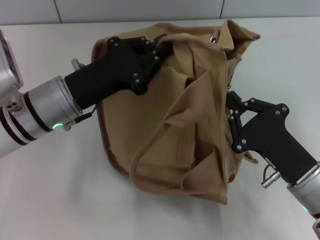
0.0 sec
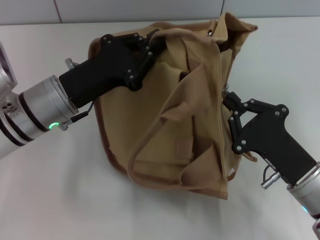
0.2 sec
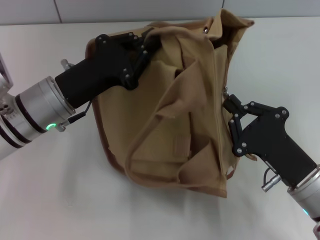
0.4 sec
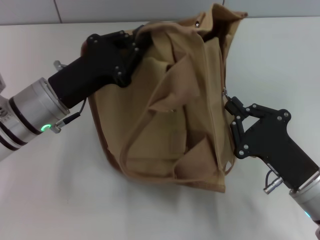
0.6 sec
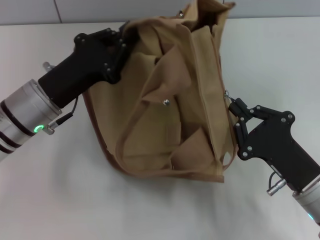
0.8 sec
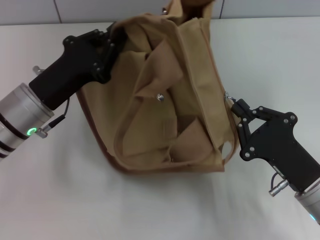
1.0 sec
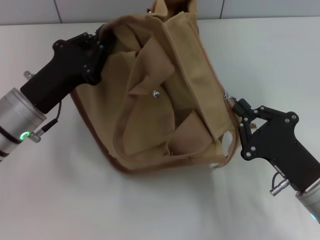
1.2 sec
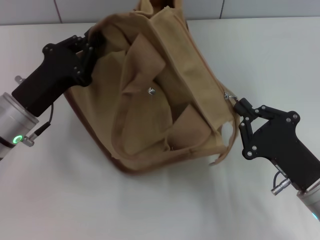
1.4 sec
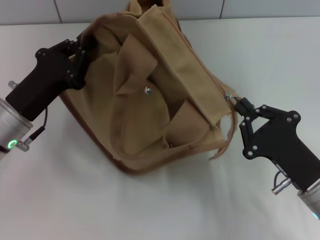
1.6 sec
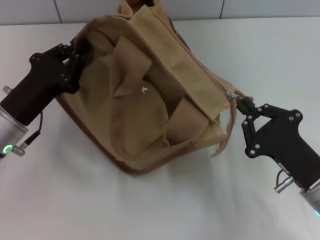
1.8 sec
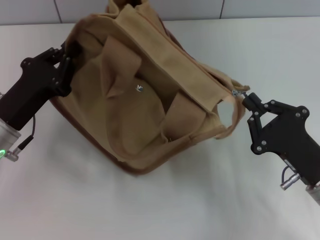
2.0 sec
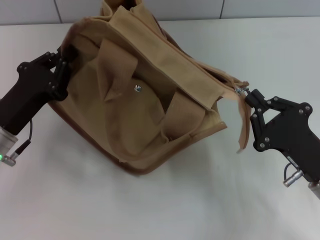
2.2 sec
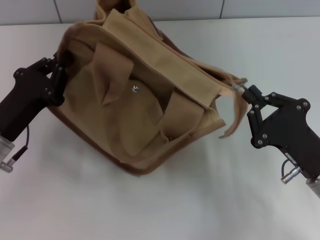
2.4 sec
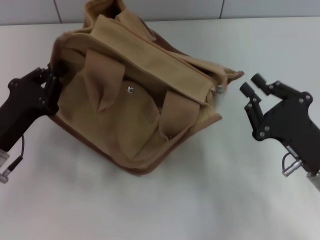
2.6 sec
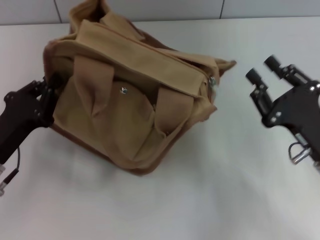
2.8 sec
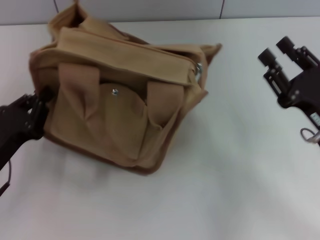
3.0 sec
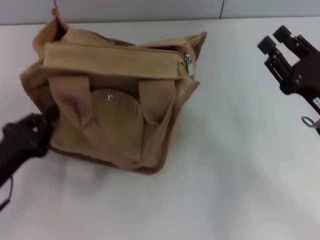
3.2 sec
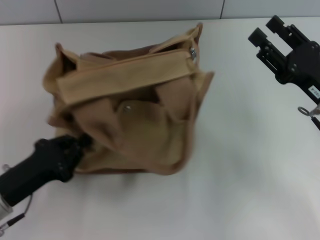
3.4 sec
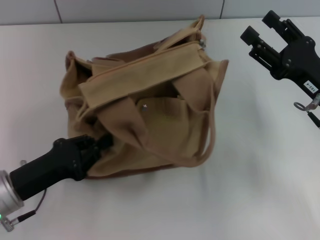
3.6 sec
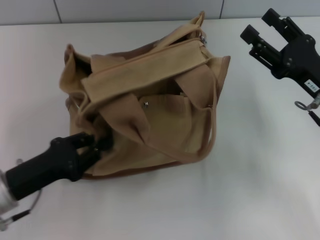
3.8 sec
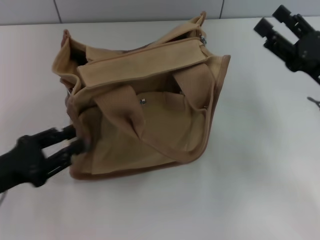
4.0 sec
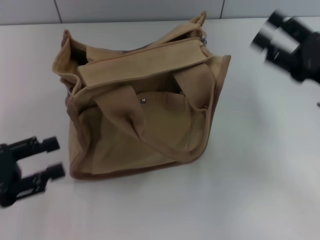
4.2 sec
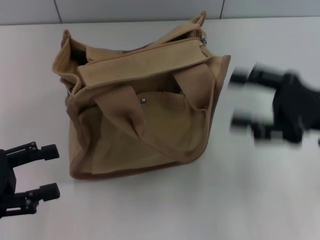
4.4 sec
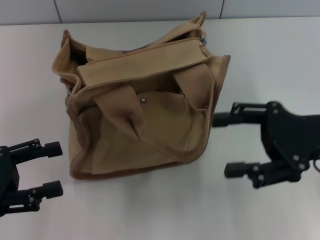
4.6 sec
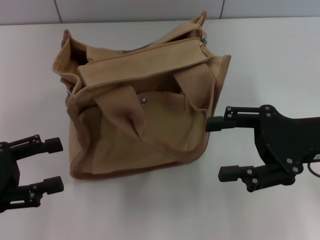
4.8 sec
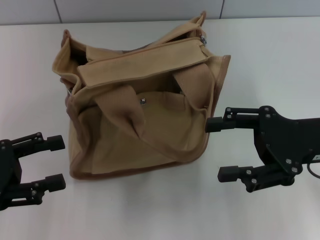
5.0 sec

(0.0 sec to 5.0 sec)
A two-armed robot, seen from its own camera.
Step, 0.0 sec - 2.6 sec: Pull open the zipper with your right hand.
Step, 2.8 sec - 4.0 sec: Grab the bag with your left hand.
0.0 sec - 1.6 sec: The left gripper is displaced to the left by about 5 cm.
1.6 sec - 3.4 sec: The right gripper is displaced forward and upward by approximately 10 cm, and opens; the left gripper heads backward, covering roughly 10 cm.
3.4 sec - 5.0 sec: The left gripper heads upward and to the left, covering roughly 10 cm, and opens. The right gripper travels upward by approximately 5 cm, and opens its fingers.

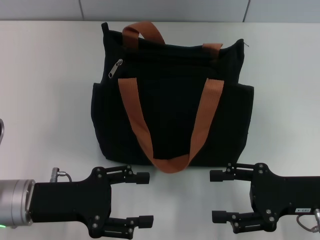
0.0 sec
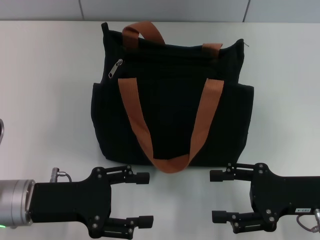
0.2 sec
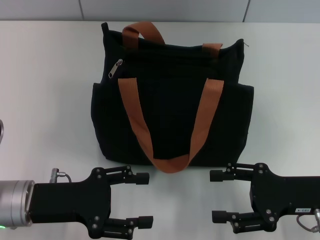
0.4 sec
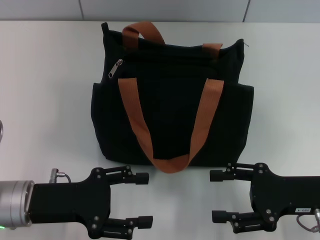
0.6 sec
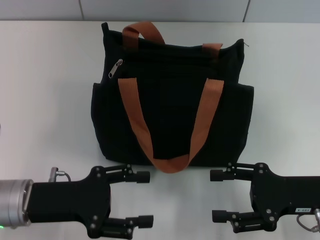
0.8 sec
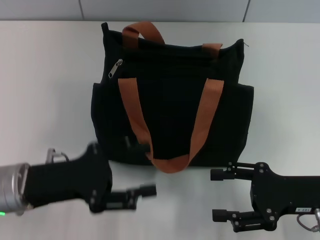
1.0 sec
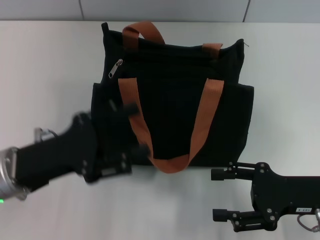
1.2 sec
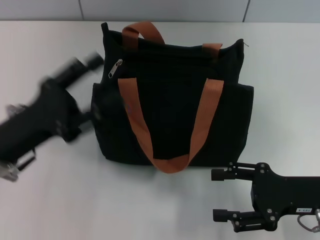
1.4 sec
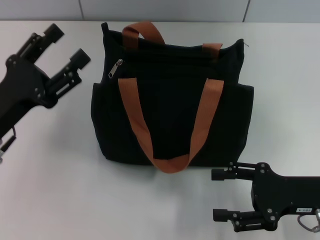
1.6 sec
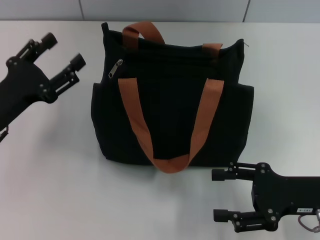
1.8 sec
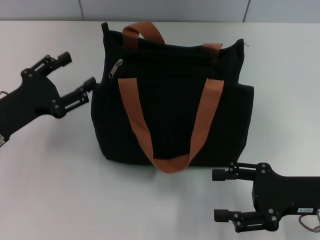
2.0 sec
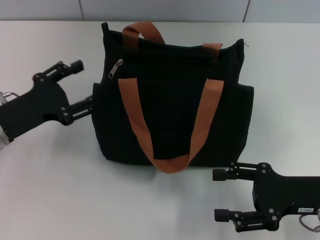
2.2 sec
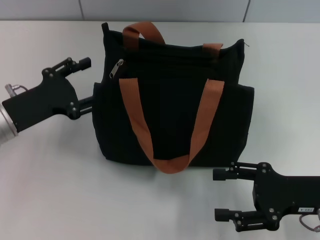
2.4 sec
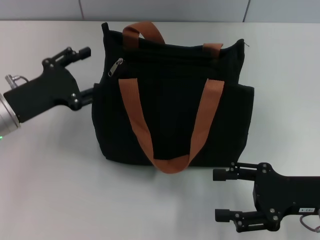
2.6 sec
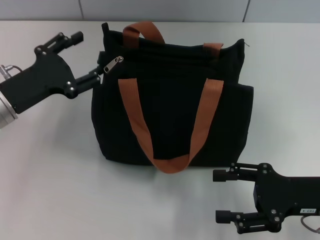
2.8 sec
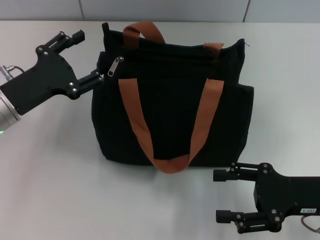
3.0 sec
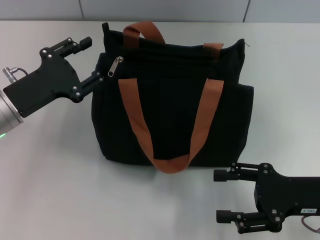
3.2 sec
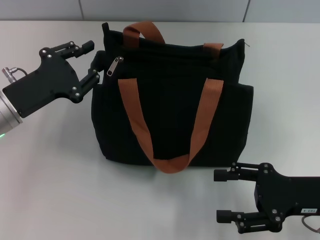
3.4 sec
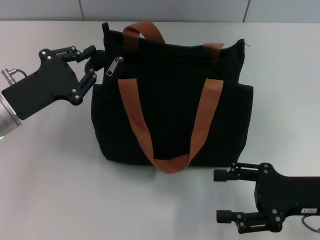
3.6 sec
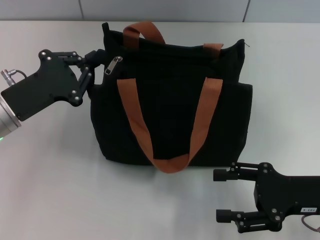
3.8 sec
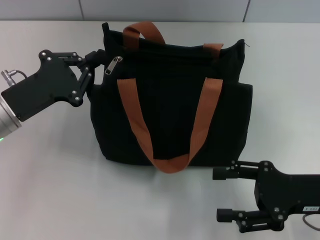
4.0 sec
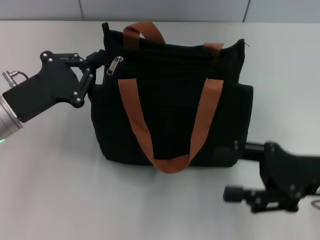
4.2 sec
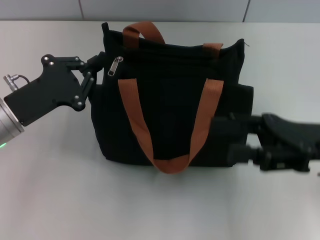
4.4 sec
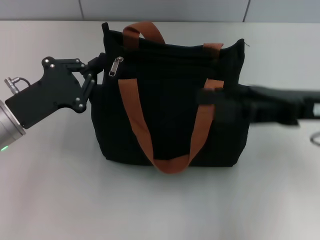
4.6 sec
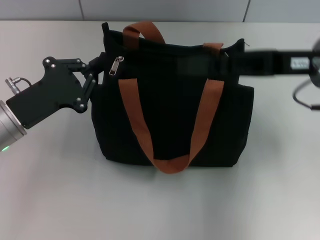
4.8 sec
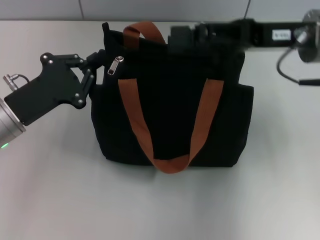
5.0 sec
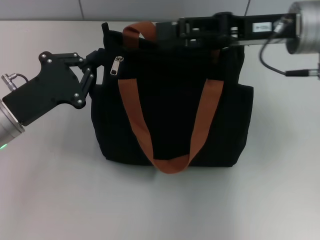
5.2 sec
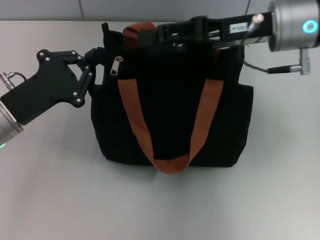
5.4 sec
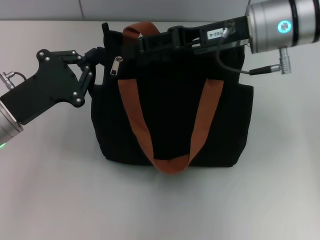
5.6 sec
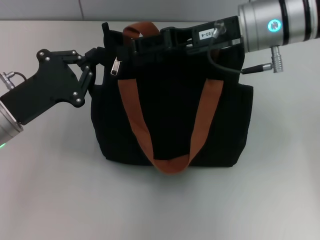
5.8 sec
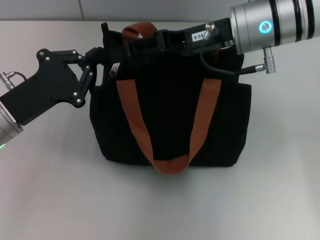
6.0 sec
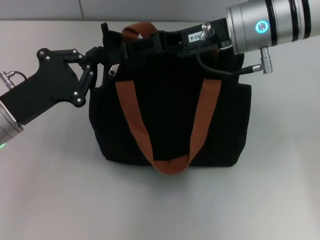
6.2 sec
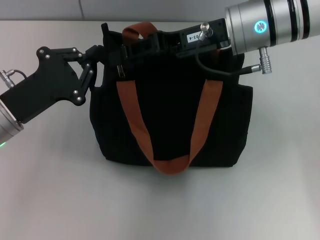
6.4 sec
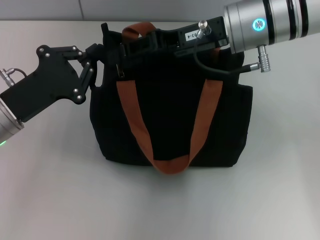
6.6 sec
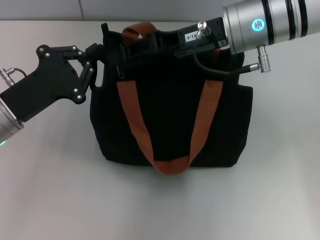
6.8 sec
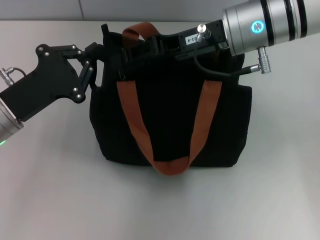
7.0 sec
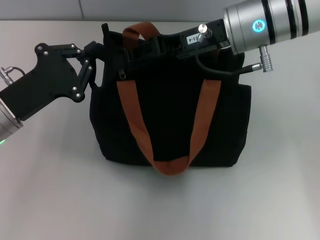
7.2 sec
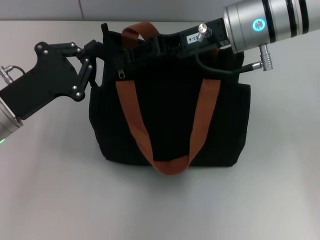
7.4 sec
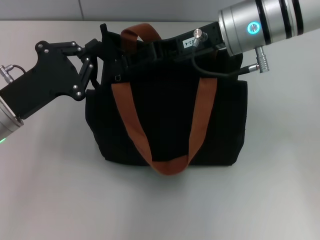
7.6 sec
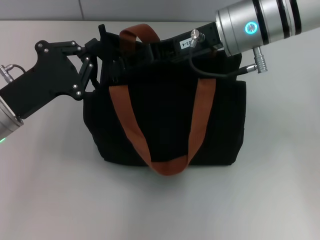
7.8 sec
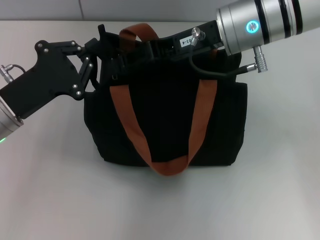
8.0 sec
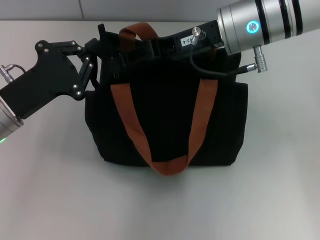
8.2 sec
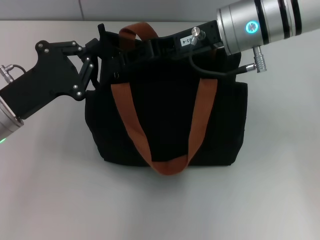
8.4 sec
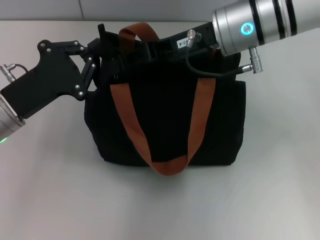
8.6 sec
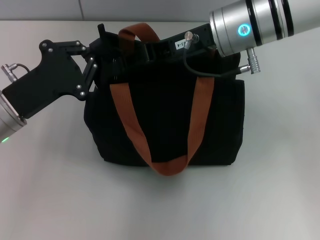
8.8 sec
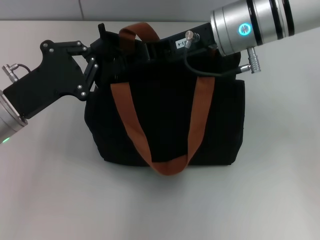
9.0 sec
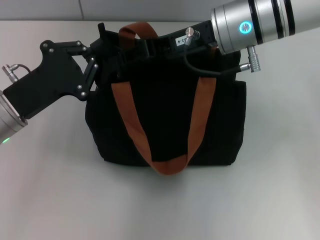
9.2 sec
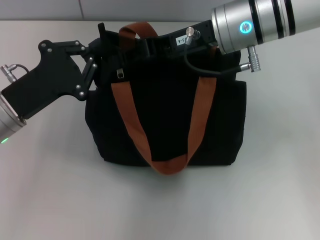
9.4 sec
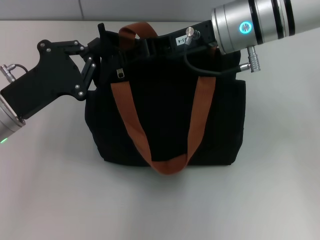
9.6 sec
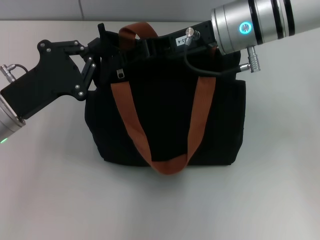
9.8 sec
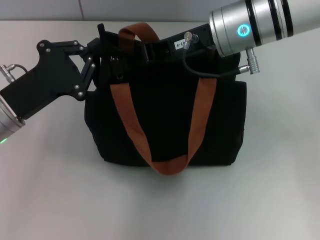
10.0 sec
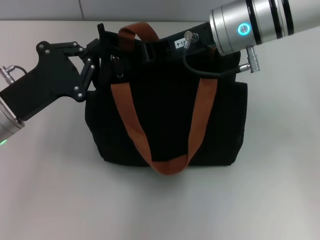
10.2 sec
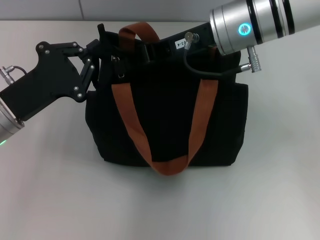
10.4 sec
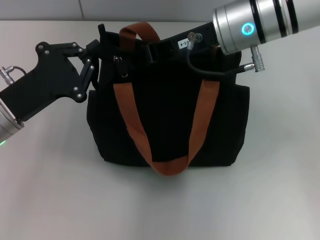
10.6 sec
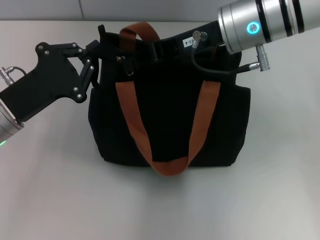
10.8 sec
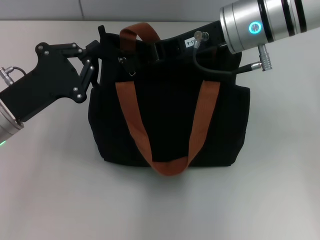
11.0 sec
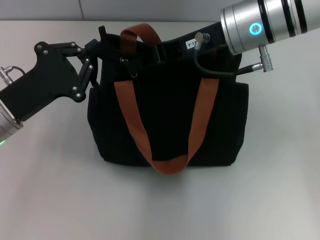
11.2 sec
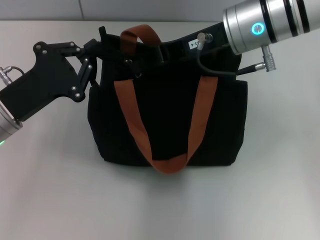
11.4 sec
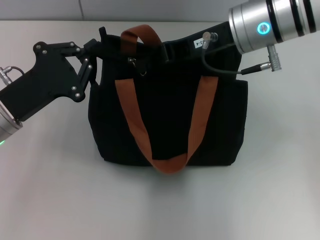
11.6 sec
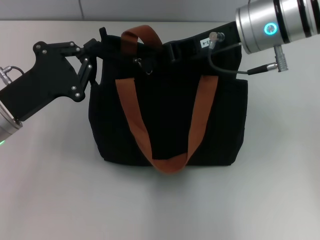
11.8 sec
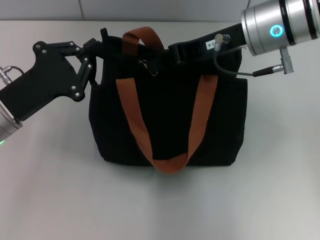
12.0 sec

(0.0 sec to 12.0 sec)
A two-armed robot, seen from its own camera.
1.6 sec - 3.0 sec: The left gripper is displaced forward by about 5 cm.
3.0 sec - 4.4 sec: The right gripper goes roughly 5 cm upward. The left gripper closes up.
4.4 sec - 6.0 sec: The right gripper moves forward, to the left and upward, some 20 cm.
6.0 sec - 7.6 sec: The right gripper closes up.
7.6 sec - 9.0 sec: Both grippers stay put.
9.0 sec - 10.4 sec: The right gripper closes.
10.4 sec - 12.0 sec: The grippers stay close to where they were, moving slightly.

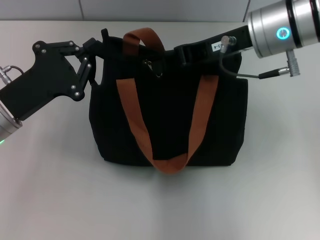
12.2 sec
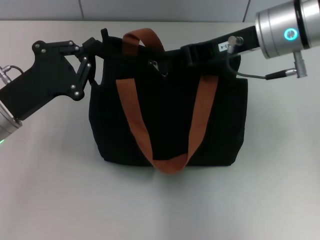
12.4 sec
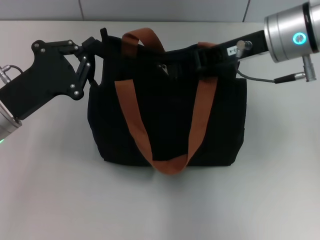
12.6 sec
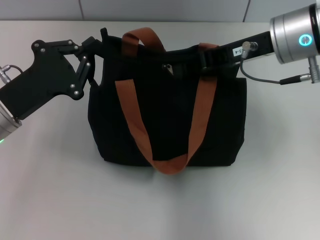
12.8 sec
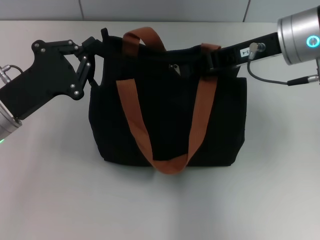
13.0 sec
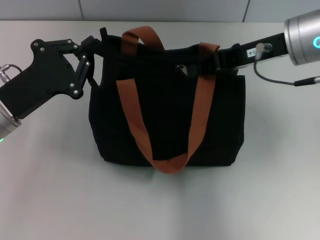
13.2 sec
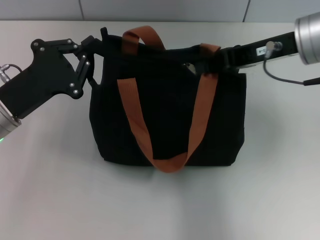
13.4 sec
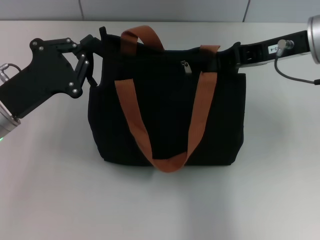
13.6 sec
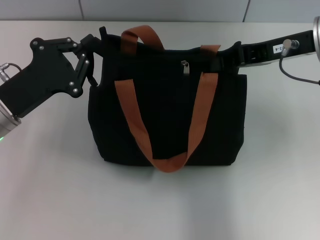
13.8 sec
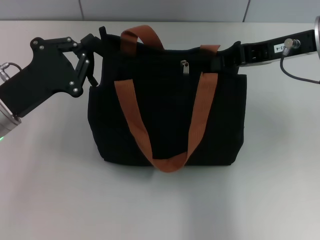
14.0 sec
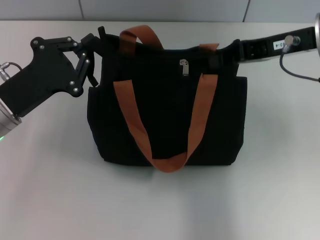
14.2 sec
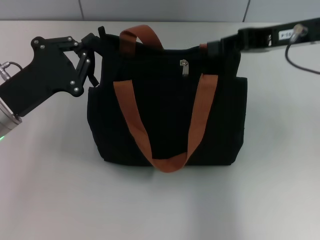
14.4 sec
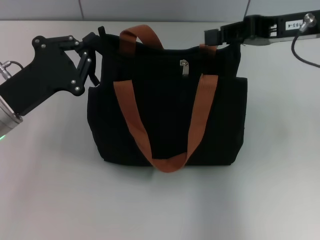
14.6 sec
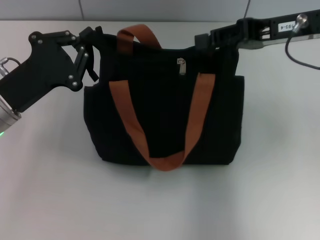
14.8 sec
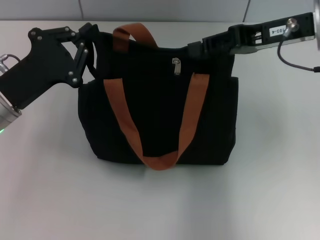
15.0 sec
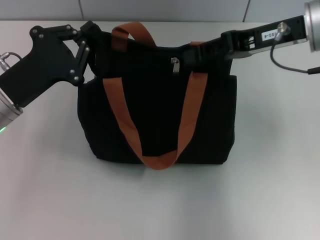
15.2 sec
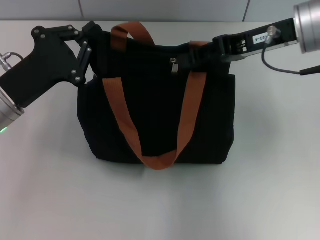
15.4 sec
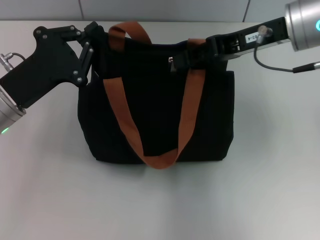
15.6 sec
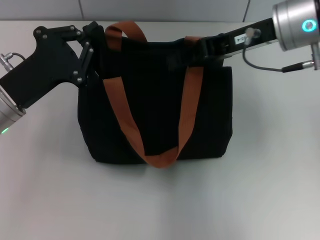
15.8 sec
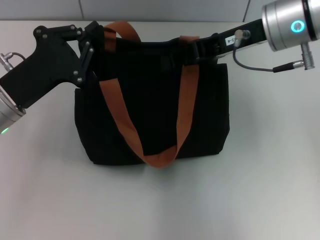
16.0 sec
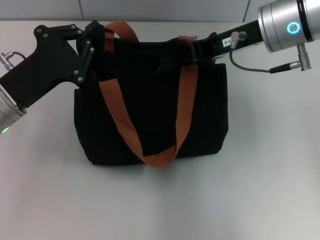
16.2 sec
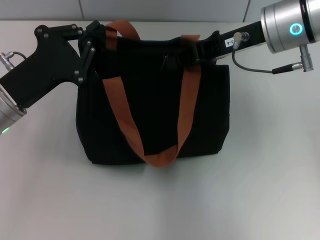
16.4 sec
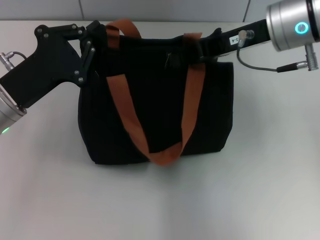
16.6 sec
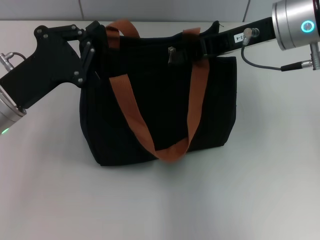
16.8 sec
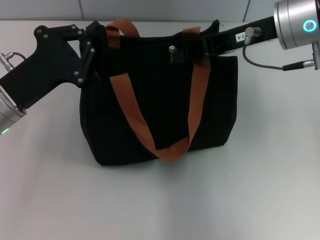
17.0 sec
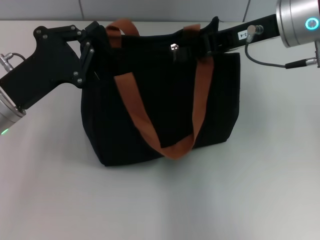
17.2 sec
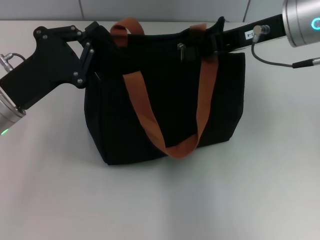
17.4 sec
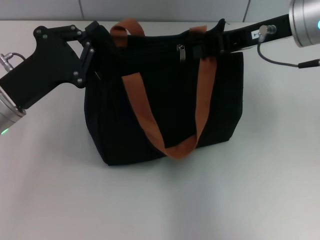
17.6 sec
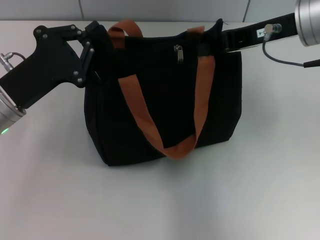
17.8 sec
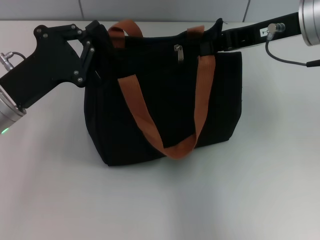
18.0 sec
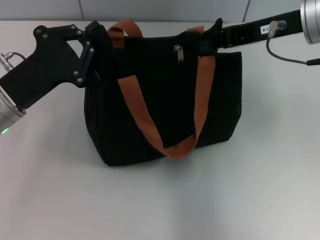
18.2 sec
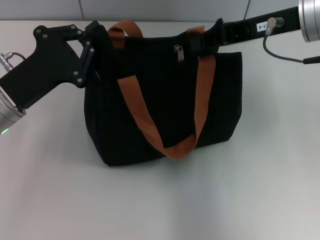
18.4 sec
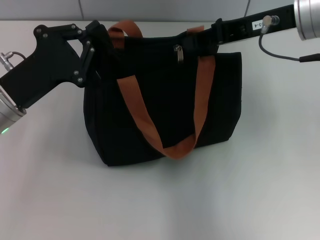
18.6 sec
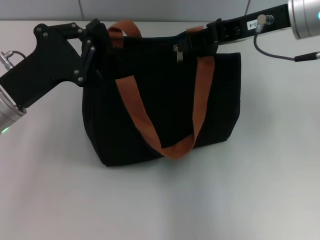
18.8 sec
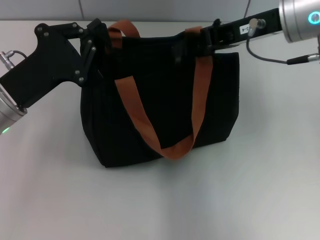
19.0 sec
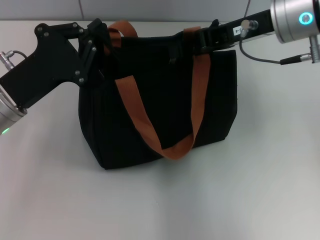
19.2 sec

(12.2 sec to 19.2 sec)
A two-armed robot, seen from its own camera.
12.2 sec - 13.6 sec: The right gripper moves to the right, some 5 cm.
13.6 sec - 15.0 sec: The right gripper opens its fingers.
15.0 sec - 16.4 sec: The right gripper travels to the left by some 5 cm.
16.4 sec - 19.2 sec: The grippers move only a little.
